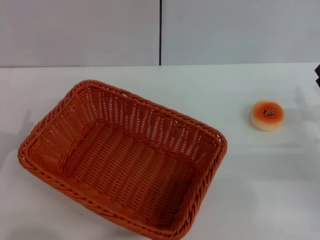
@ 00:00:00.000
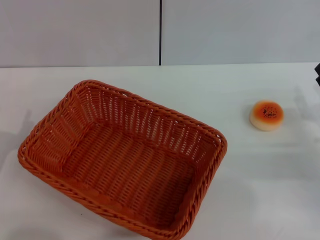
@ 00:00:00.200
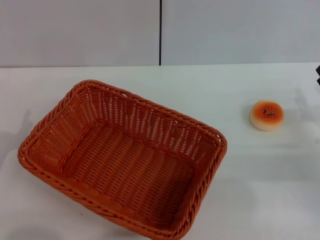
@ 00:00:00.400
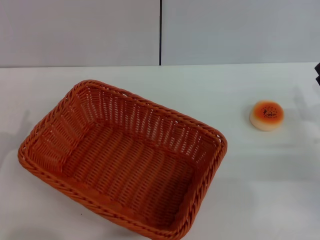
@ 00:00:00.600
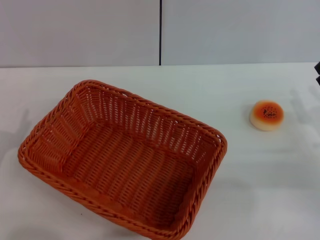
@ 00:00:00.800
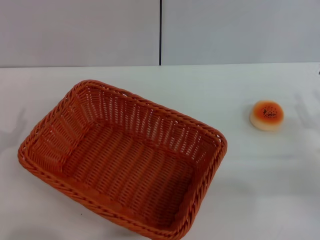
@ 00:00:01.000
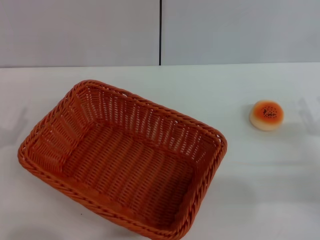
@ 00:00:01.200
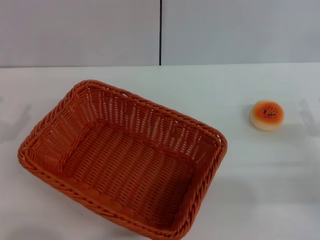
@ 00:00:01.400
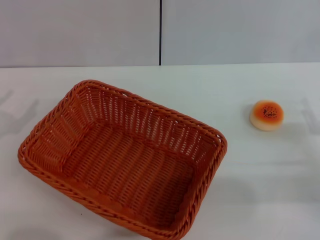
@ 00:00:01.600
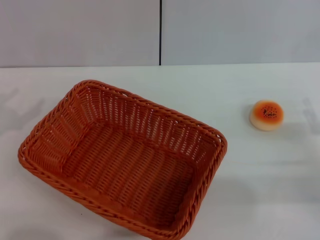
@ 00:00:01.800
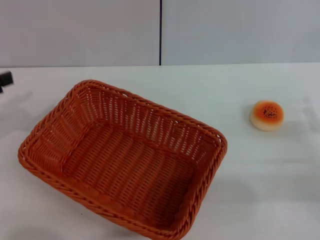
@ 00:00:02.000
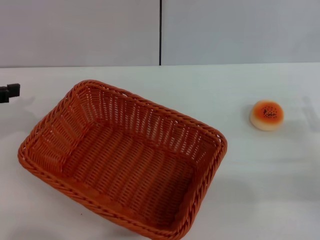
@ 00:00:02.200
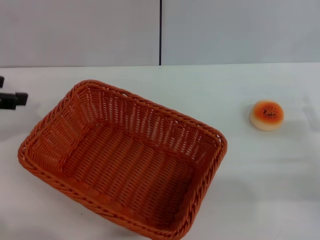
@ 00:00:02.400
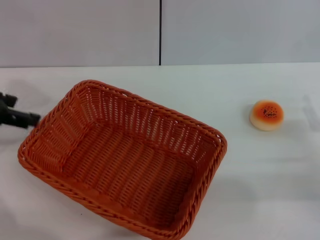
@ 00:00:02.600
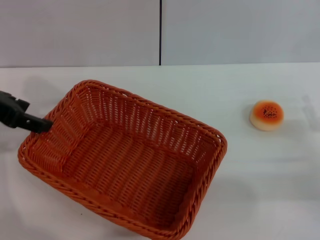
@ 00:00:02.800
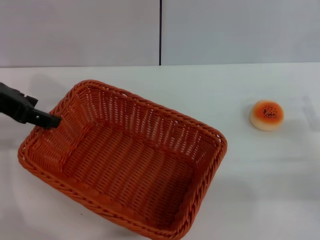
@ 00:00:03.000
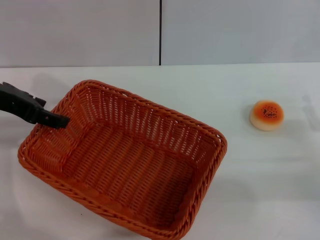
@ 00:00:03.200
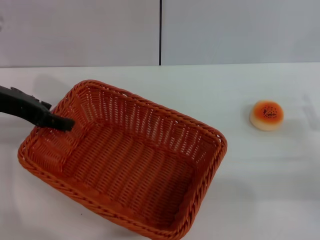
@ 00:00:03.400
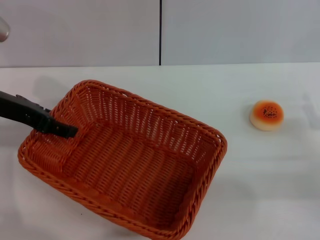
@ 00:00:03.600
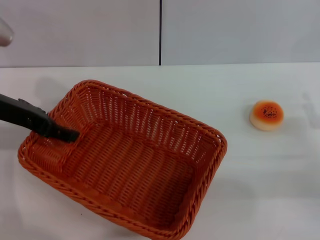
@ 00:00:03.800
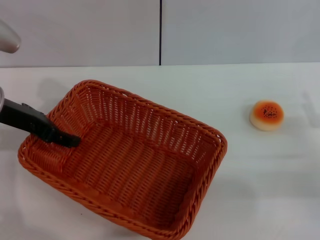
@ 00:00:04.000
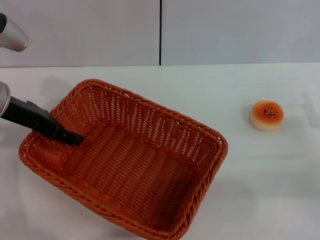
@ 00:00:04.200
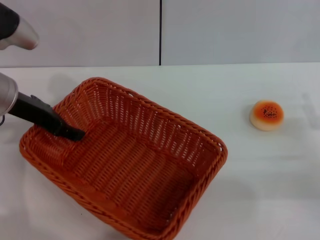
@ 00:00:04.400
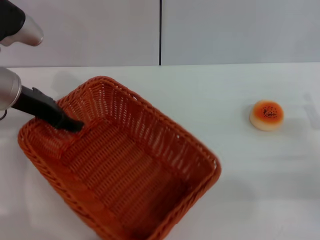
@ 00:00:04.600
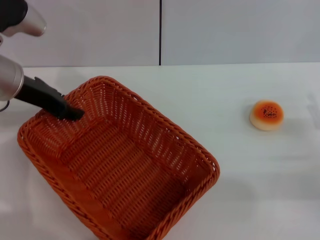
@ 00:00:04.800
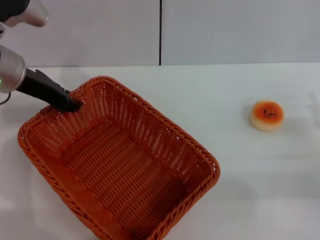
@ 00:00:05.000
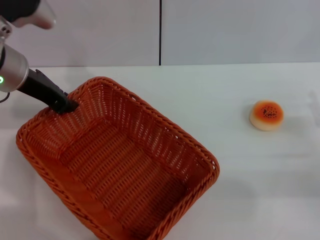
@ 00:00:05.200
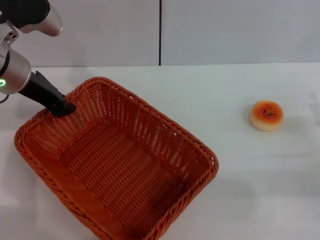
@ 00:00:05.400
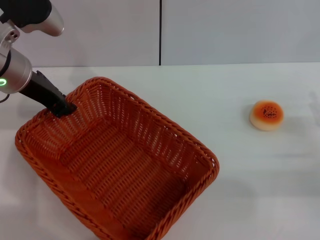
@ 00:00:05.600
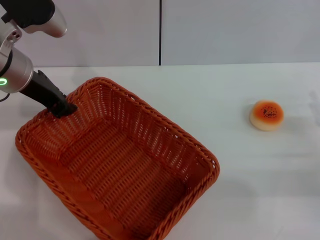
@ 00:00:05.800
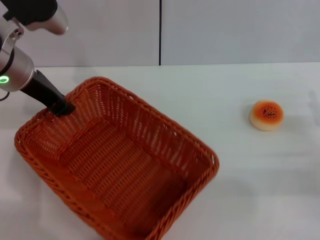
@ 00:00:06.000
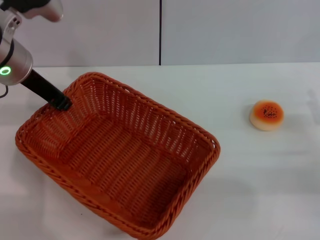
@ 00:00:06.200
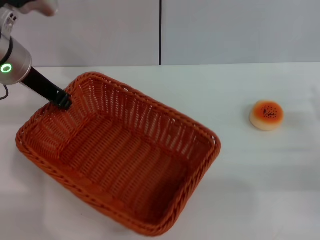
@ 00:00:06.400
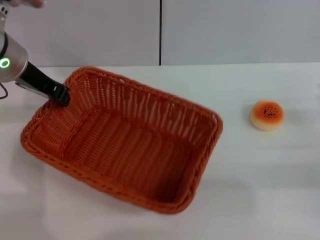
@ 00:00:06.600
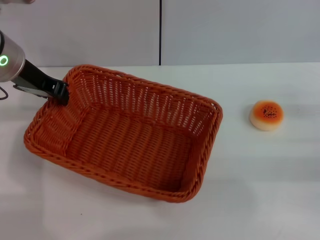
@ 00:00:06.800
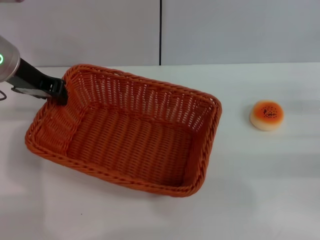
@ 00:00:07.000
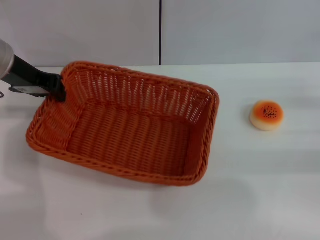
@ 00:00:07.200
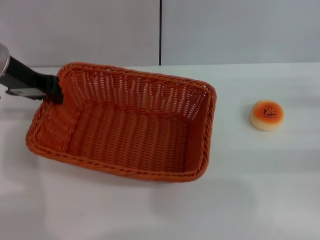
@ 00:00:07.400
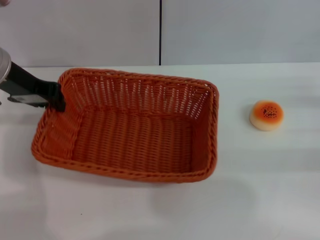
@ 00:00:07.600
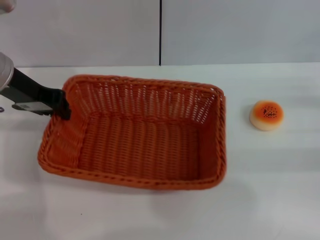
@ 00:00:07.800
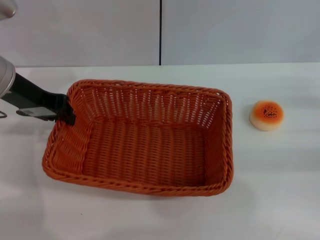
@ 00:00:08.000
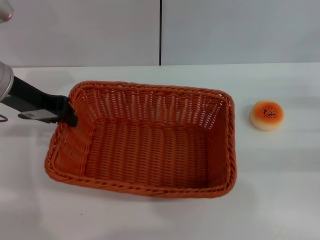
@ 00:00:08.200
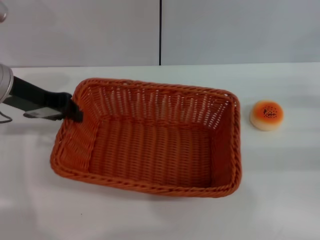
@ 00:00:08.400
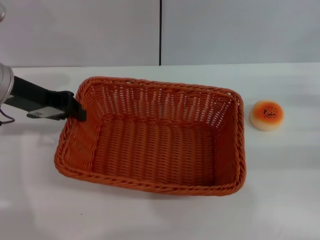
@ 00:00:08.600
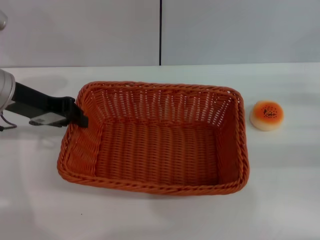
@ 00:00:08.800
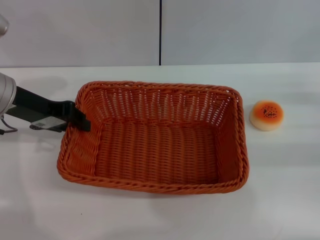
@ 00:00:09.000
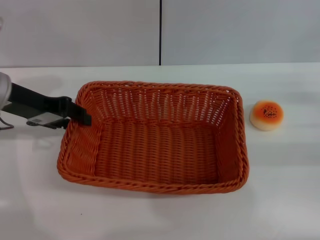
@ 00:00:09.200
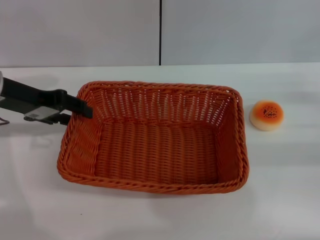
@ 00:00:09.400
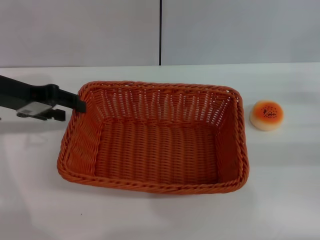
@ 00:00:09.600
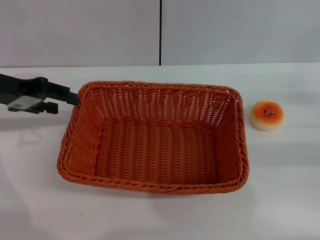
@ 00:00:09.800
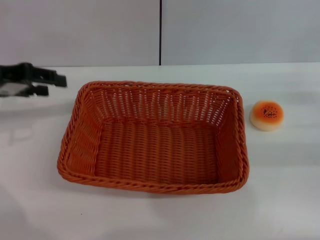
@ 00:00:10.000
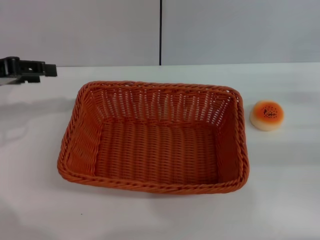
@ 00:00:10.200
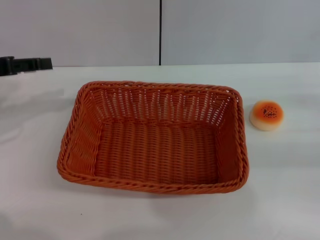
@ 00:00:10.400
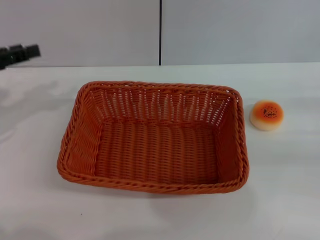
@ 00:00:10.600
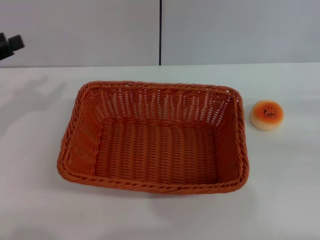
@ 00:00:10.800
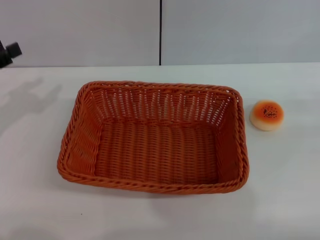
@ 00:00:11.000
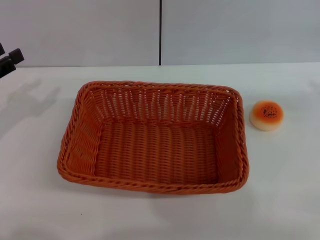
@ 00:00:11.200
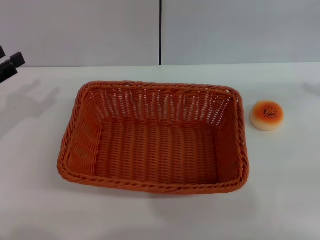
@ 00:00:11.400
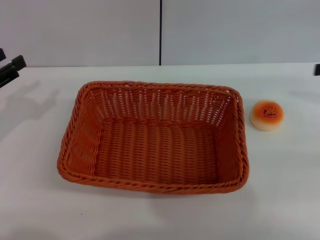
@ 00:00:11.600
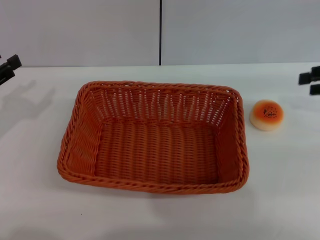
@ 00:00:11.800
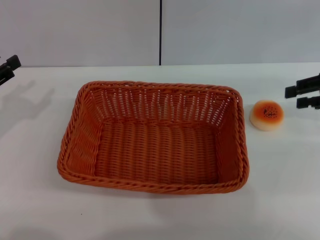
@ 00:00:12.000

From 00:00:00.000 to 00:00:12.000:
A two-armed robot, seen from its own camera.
Step, from 00:00:00.000 to 00:00:05.400: Grasp the basket with left gripper.
Step, from 00:00:05.800 to 00:00:09.600: Place the basket in the center of view with left gripper.
From 00:00:01.600 to 00:00:03.000: The left gripper moves upward, to the right and forward, about 20 cm.
From 00:00:03.000 to 00:00:04.400: The left gripper shifts approximately 5 cm downward.
From 00:00:04.400 to 00:00:06.000: The left gripper closes.
From 00:00:06.000 to 00:00:07.600: The right gripper is displaced to the right by approximately 5 cm.
From 00:00:07.600 to 00:00:09.000: The grippers stay close to where they were, moving slightly.
From 00:00:09.000 to 00:00:10.400: The left gripper travels to the left by about 10 cm, and opens its fingers.
From 00:00:10.400 to 00:00:12.000: The left gripper travels downward by roughly 5 cm, while the right gripper shifts roughly 10 cm forward and upward.

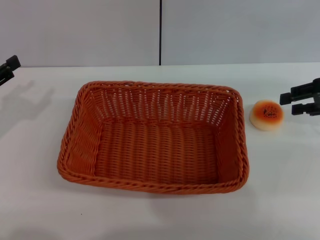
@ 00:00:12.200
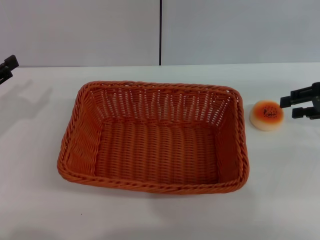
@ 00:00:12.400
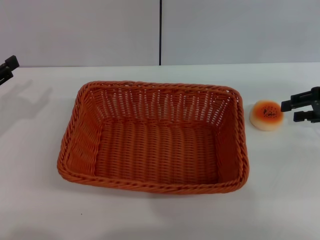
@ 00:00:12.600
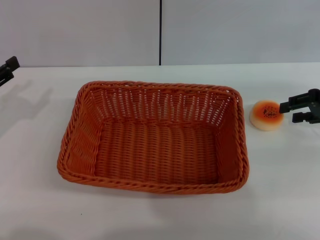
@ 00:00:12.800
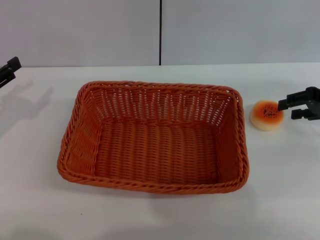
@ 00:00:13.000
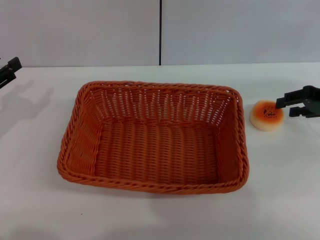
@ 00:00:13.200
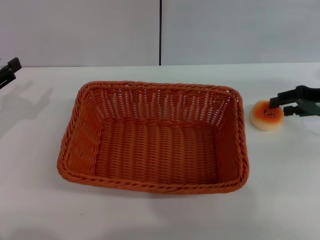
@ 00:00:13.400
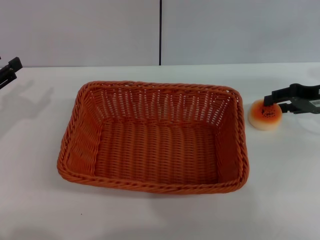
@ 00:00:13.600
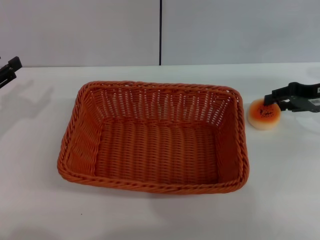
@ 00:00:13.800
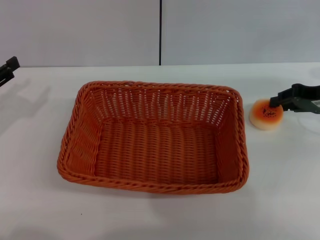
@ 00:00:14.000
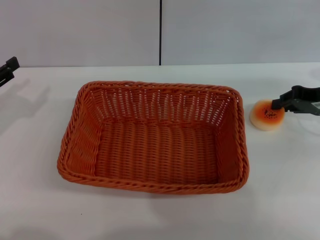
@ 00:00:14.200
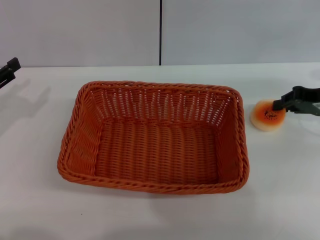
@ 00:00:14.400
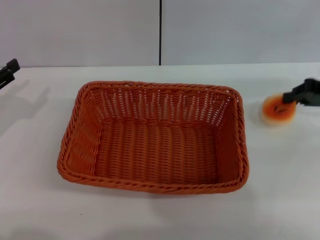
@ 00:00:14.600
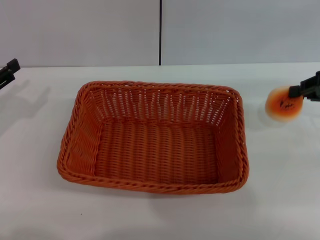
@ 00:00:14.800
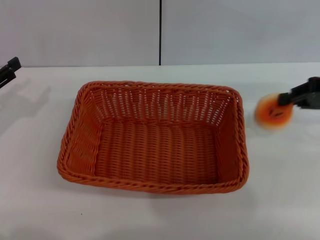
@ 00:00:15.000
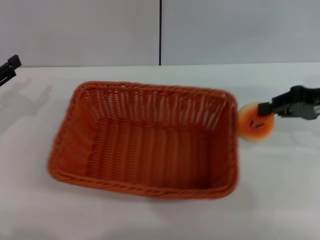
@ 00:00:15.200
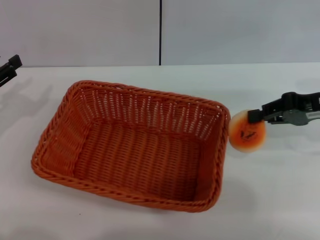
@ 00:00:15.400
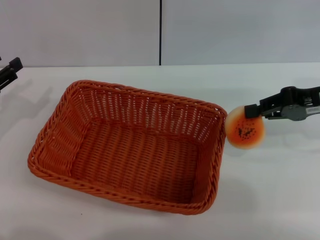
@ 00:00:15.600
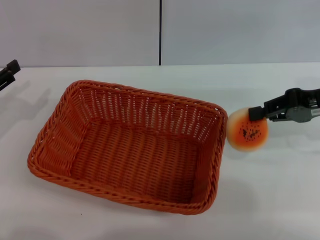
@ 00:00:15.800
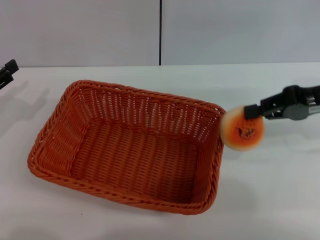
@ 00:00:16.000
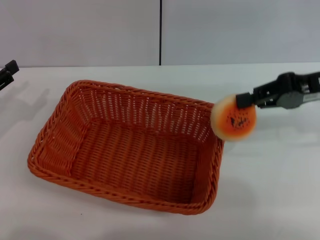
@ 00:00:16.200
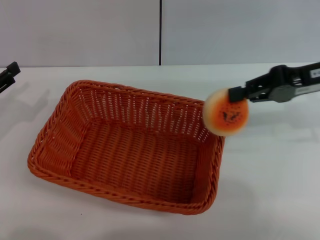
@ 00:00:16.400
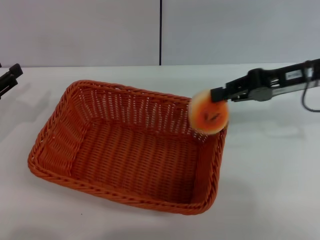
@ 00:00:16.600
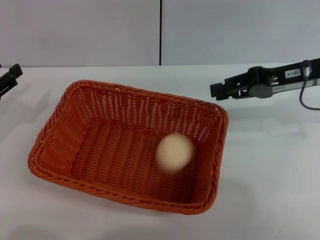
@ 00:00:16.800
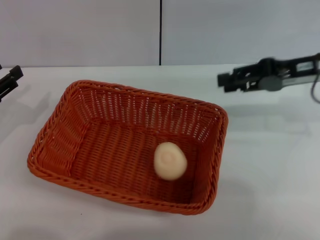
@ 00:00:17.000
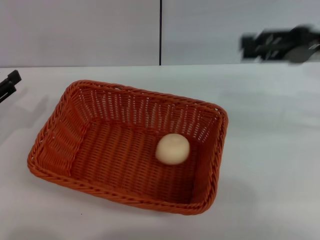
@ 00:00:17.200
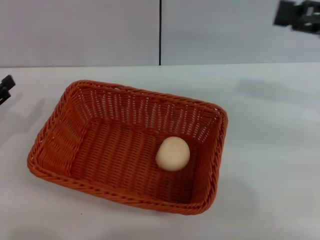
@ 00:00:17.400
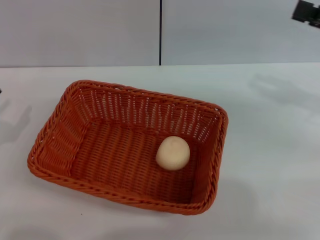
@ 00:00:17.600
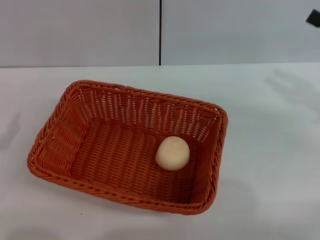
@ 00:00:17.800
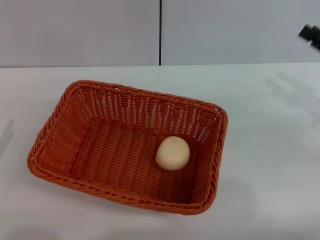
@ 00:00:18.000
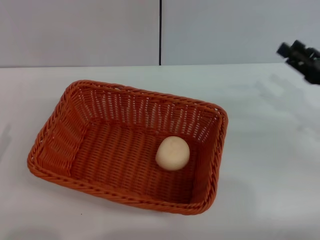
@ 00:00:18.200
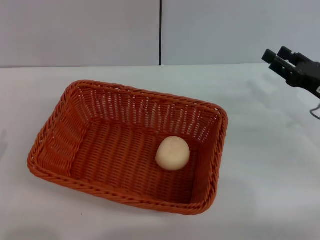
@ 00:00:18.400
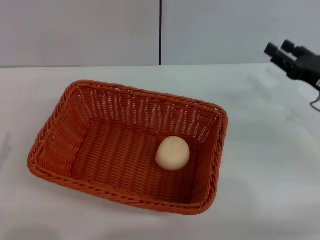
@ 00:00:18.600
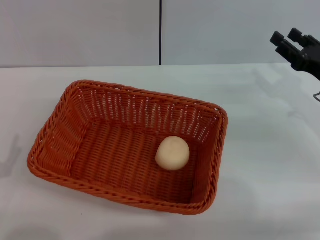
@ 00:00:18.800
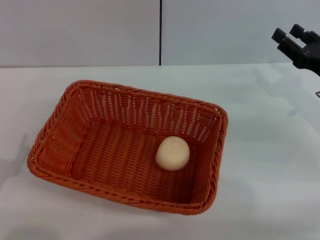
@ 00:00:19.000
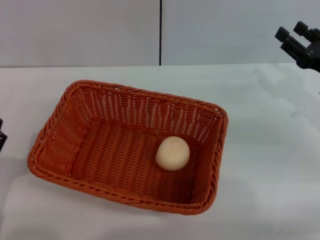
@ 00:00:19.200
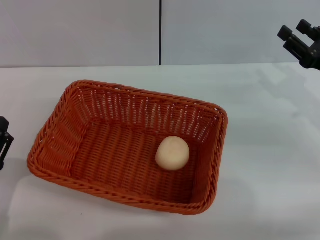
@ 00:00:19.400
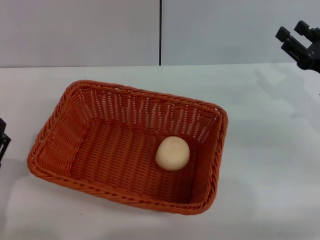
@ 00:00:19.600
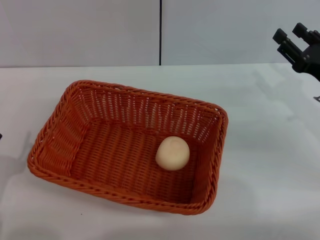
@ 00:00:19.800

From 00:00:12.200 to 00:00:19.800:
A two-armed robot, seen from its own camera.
Step, from 00:00:12.200 to 00:00:14.200: Grasp egg yolk pastry with right gripper.
Step, from 00:00:14.400 to 00:00:16.800: Place the egg yolk pastry in the basket with right gripper.
From 00:00:12.200 to 00:00:13.800: The grippers stay close to where they were, moving slightly.
From 00:00:13.800 to 00:00:15.200: The right gripper ends up roughly 5 cm from where it was, and closes its fingers.
From 00:00:15.200 to 00:00:16.800: The right gripper heads to the left, covering some 5 cm.
From 00:00:16.800 to 00:00:18.200: The right gripper moves downward, to the right and backward, some 10 cm, and opens its fingers, while the left gripper shifts roughly 10 cm backward.
